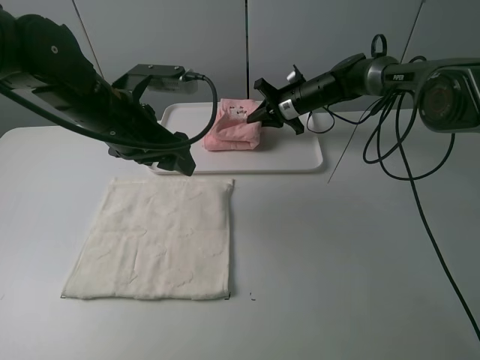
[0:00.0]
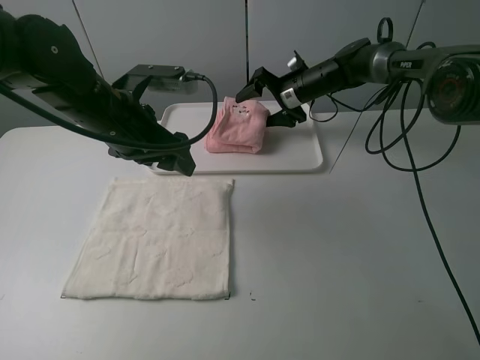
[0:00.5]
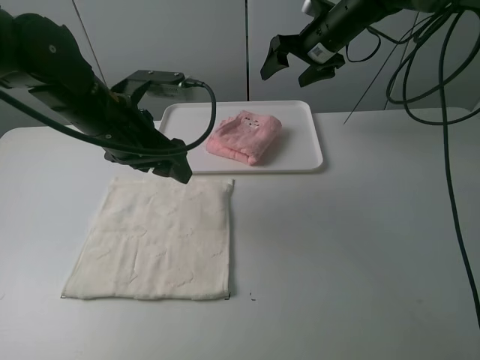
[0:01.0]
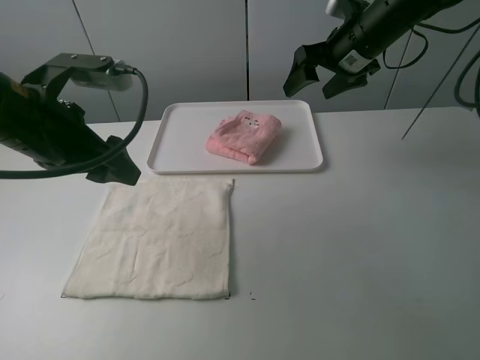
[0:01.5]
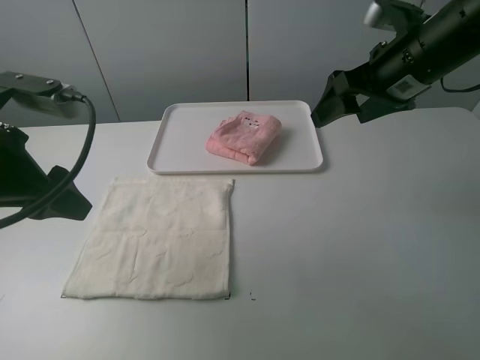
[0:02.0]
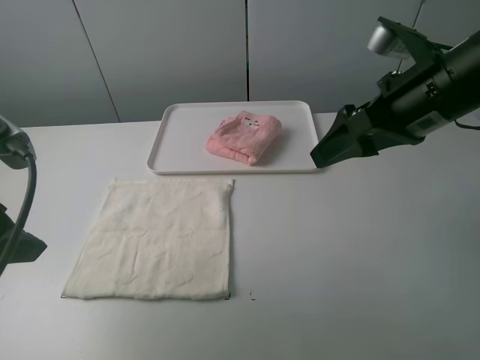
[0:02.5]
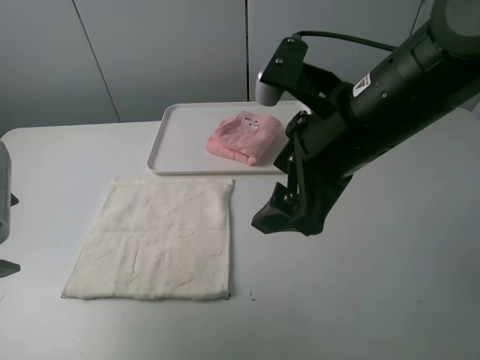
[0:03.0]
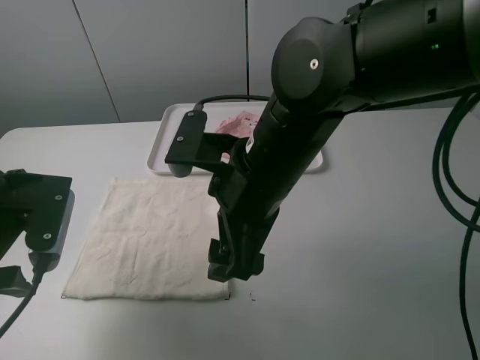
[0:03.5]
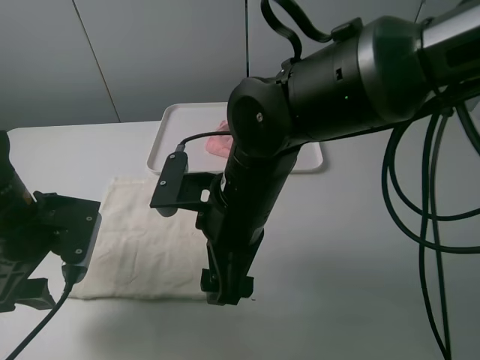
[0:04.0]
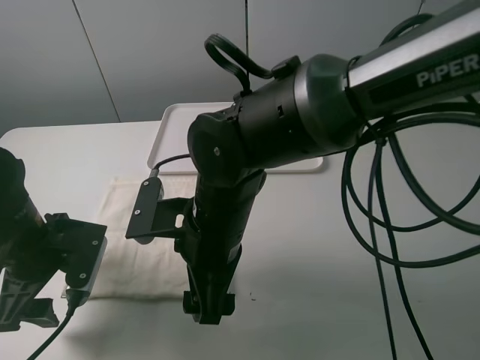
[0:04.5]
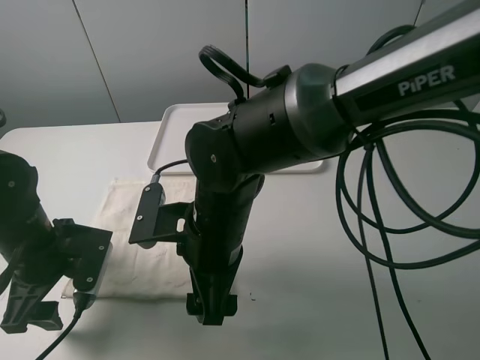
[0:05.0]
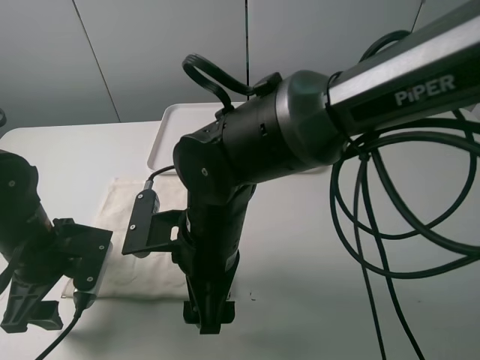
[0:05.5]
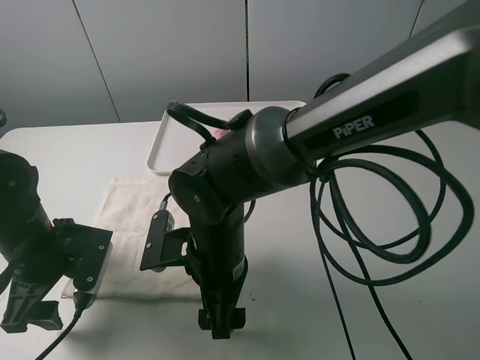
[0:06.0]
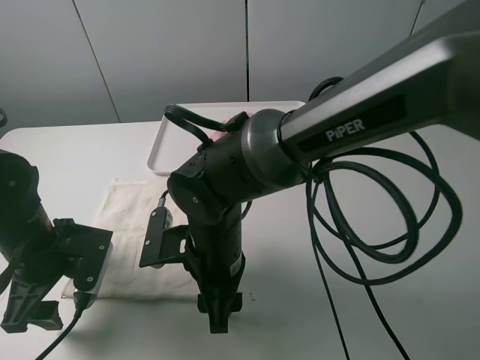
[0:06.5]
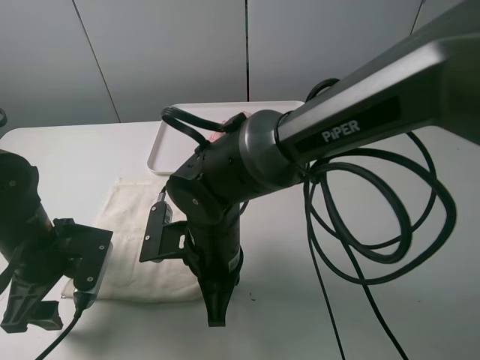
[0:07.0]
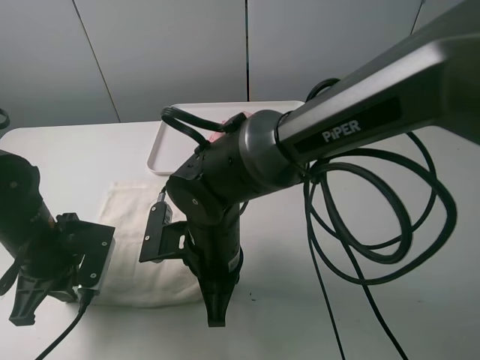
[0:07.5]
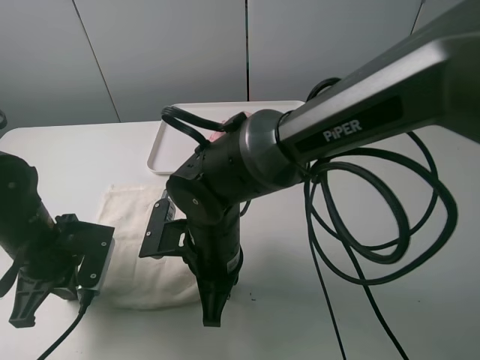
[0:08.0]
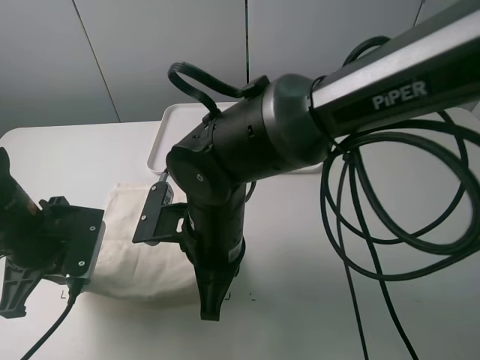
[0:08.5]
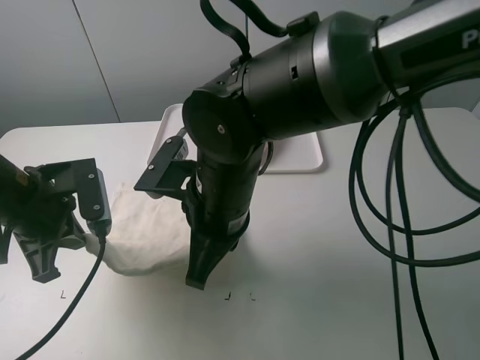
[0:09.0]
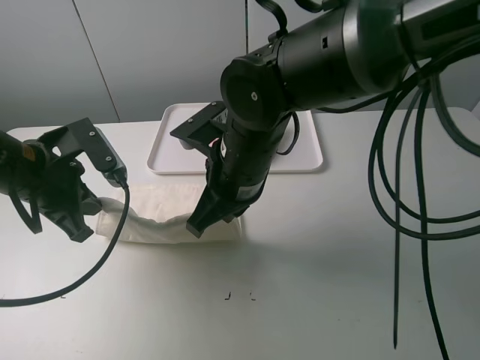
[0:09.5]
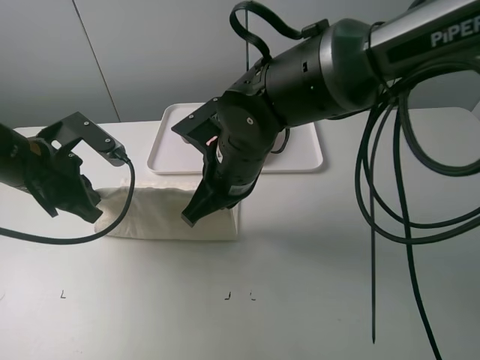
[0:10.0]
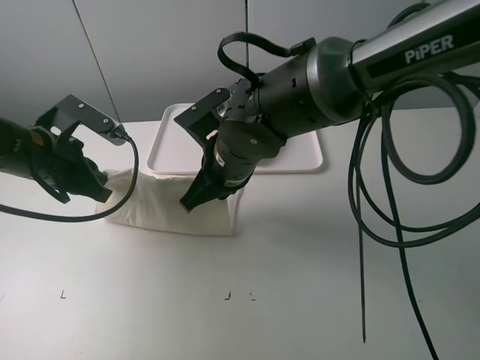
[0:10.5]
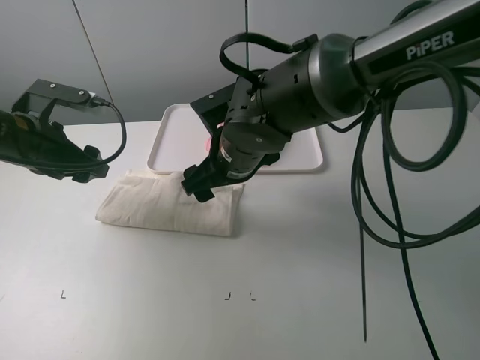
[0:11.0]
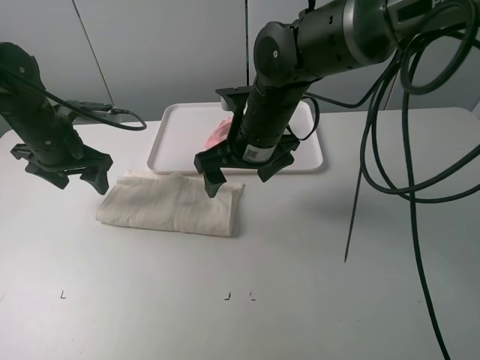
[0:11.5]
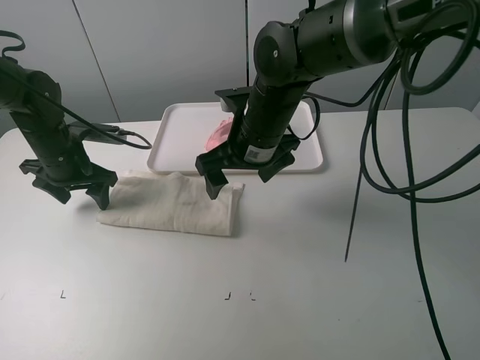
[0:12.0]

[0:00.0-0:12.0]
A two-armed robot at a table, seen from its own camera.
Task of the whole recording: fold one of the towels by two grippers and place it on the tray,then fold another towel by two grippers and place it on the folded towel.
Step, 0:01.0 to 0:07.0: Grasp the white towel with the left gripper.
Step, 0:07.5 to 0:10.5: Fold the white towel upwards with the left gripper.
0:00.0 to 0:02.0: The left gripper is displaced backward and to the left by some 15 cm, while the right gripper goes roughly 30 cm backward and upward, and opens.
0:02.0 to 0:04.0: The left gripper is displaced downward by some 10 cm. The right gripper travels to the left, backward and downward by about 25 cm.
0:04.0 to 0:06.0: The right gripper goes some 5 cm downward.
0:06.0 to 0:08.0: The left gripper closes. Meanwhile the right gripper closes its fingers.
0:08.0 to 0:10.0: The left gripper shifts some 10 cm upward and forward, while the right gripper goes roughly 10 cm forward and upward.
0:10.0 to 0:12.0: The right gripper shifts roughly 5 cm forward, and opens its fingers. The left gripper moves forward, about 10 cm, and opens up.

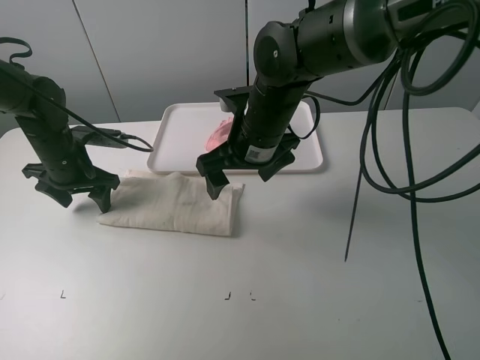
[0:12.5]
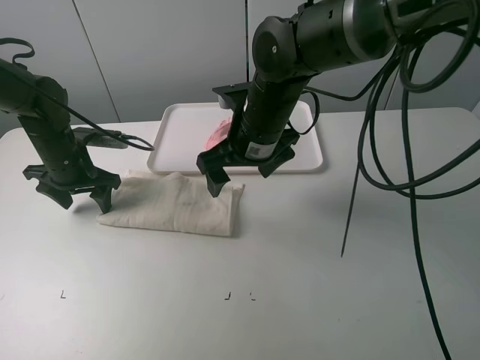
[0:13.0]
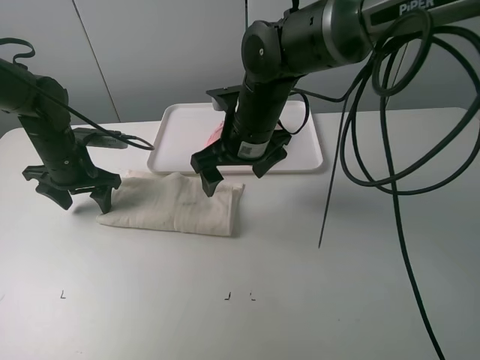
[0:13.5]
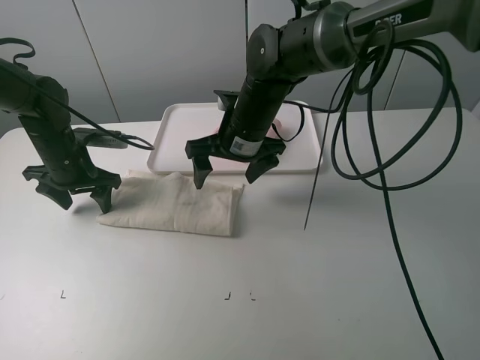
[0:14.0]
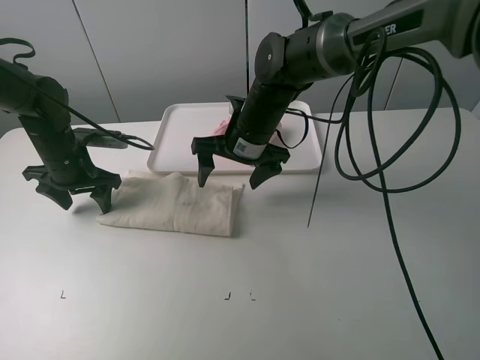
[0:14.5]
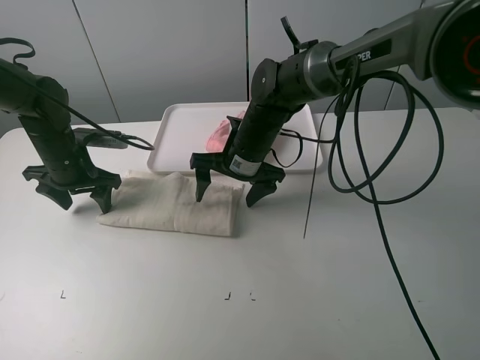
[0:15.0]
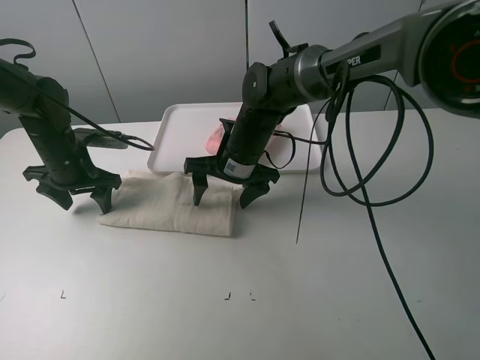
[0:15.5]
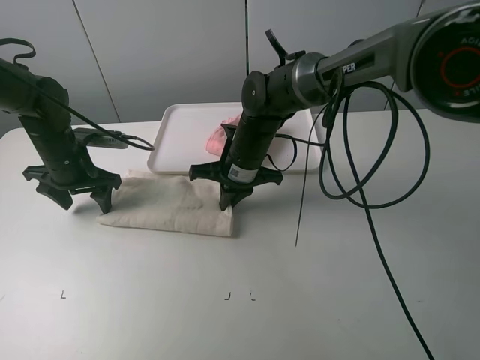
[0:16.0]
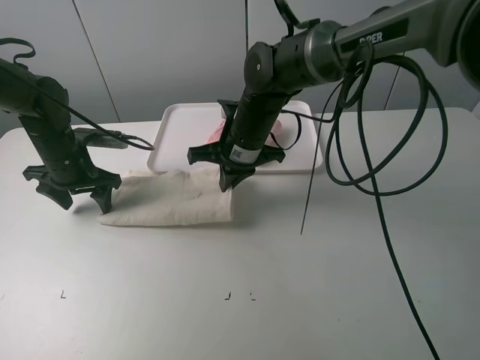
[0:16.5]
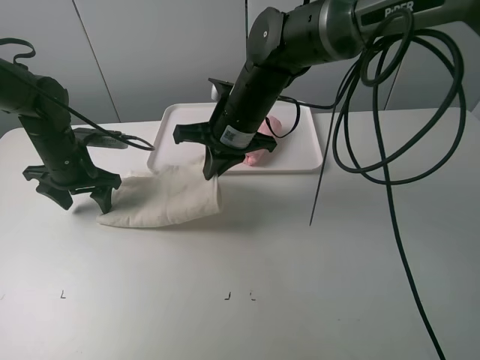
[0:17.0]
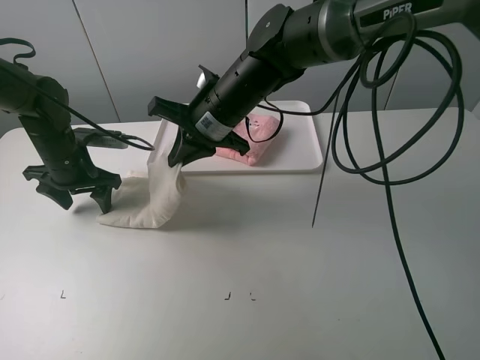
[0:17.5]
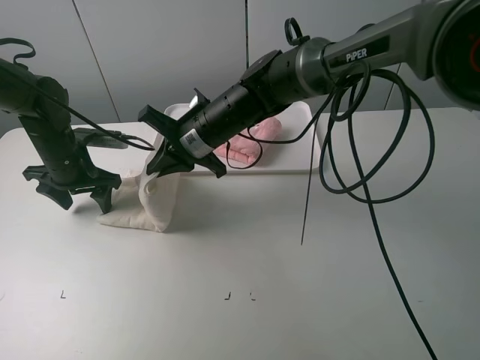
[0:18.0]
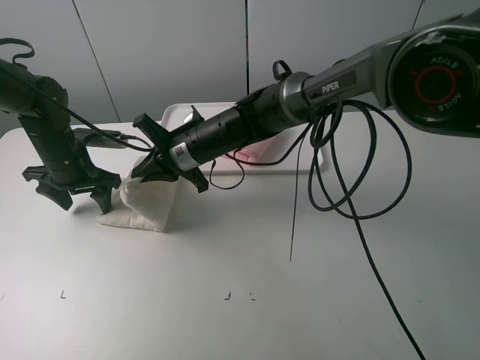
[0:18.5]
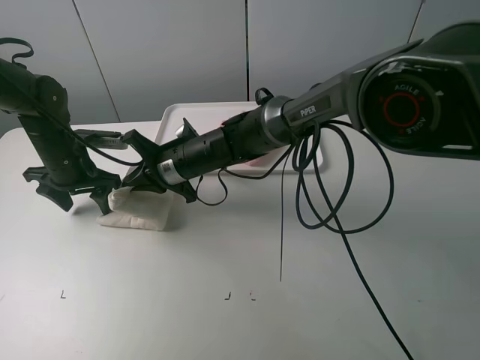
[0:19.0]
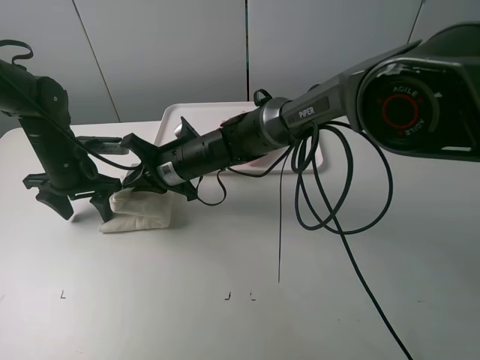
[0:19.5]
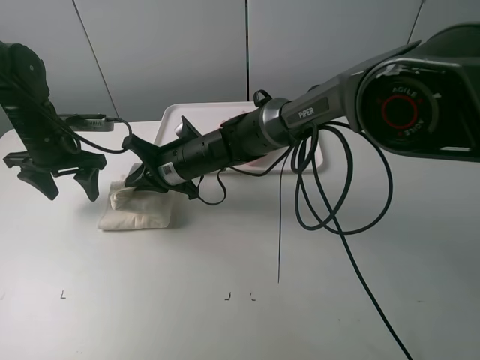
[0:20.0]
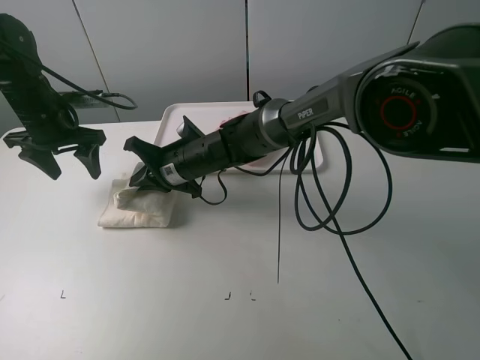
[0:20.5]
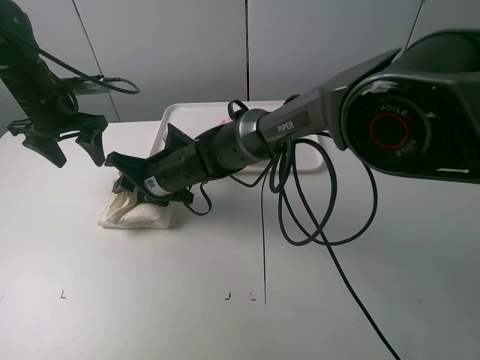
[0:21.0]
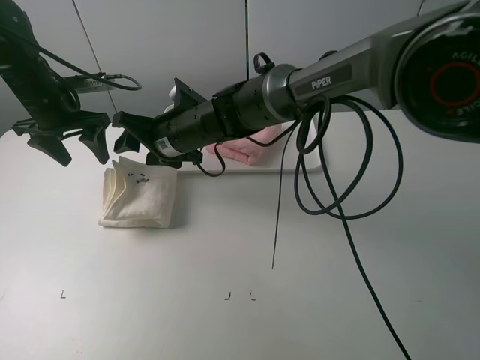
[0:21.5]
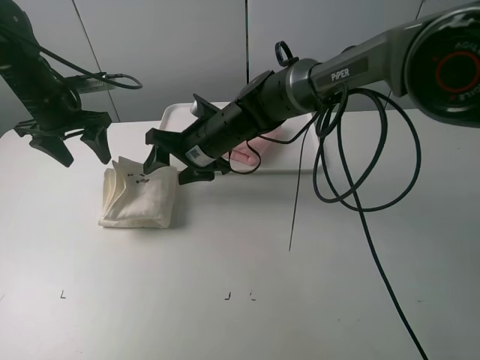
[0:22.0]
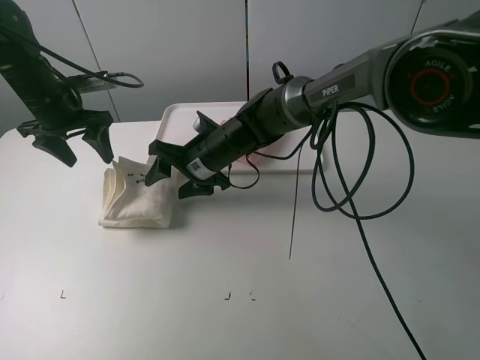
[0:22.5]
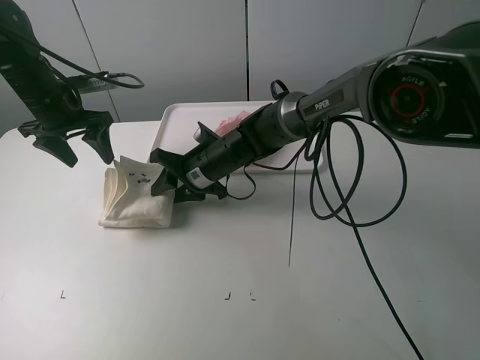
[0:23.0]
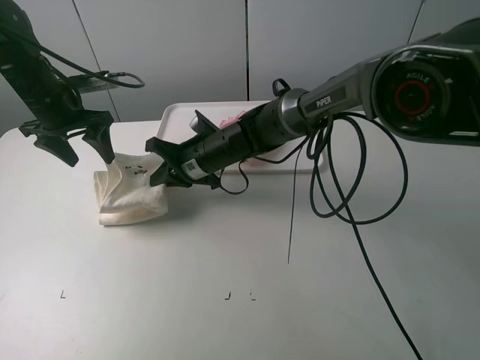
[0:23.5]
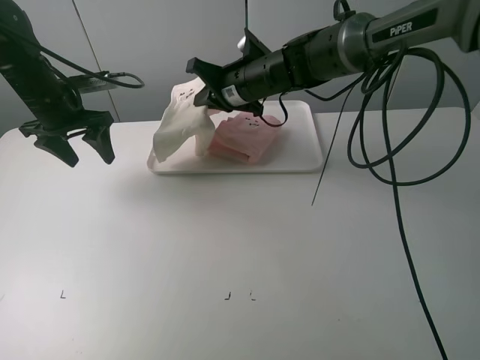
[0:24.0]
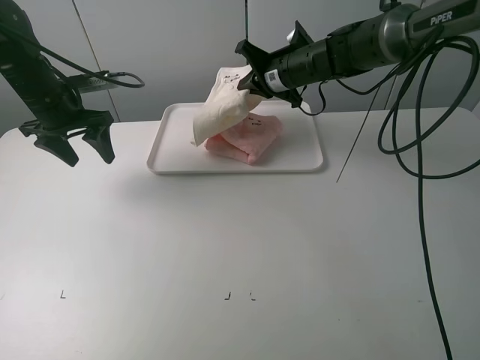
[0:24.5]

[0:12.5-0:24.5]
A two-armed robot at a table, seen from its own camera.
Task of the whole recording: fold one of the towels by two grippers and place it on the tray,then fold another towel by two grippers and place it on the folded towel.
Step, 0:13.0 to 0:16.0: Grasp the white towel with the right gripper.
Step, 0:16.5 to 0:21.5: Fold the white towel from right to left with right gripper.
Step, 0:22.0 to 0:23.0: Grasp the white towel with the right gripper.
0:12.5 to 0:14.5: The right gripper changes place by approximately 5 cm.
0:14.5 to 0:16.5: The right gripper closes.
0:16.5 to 0:18.5: The right gripper moves to the left, about 5 cm.
0:18.5 to 0:20.5: The left gripper goes roughly 5 cm upward.
0:20.5 to 0:22.5: The right gripper opens its fingers.
0:22.5 to 0:24.5: The right gripper heads to the right, forward and upward, covering some 20 cm, and closes.

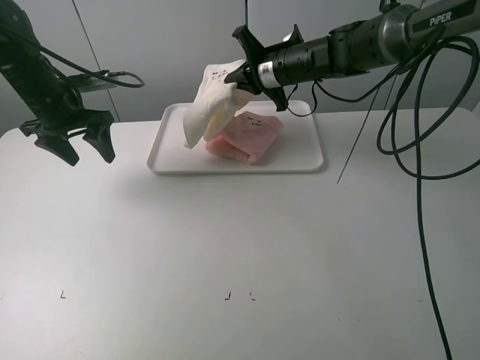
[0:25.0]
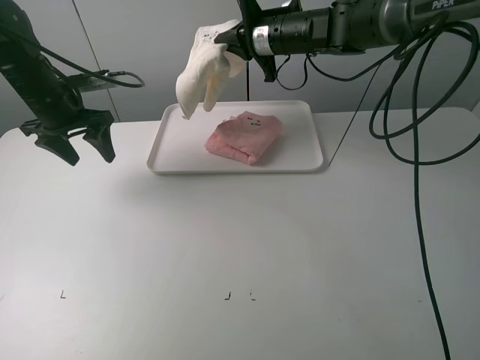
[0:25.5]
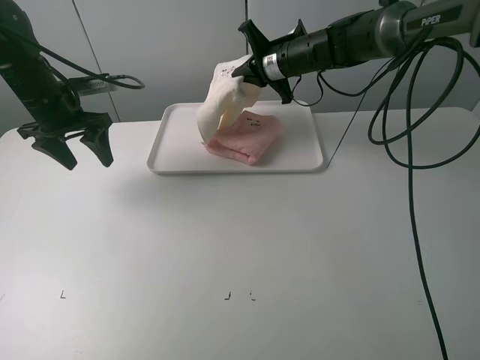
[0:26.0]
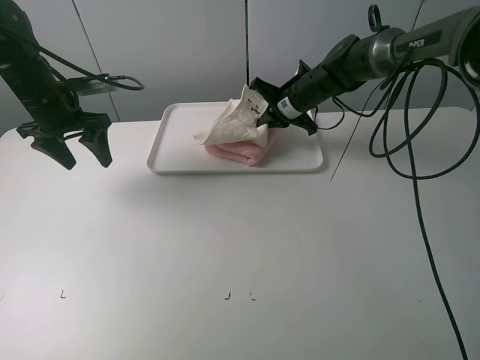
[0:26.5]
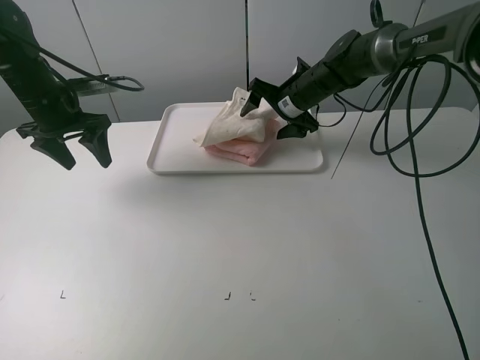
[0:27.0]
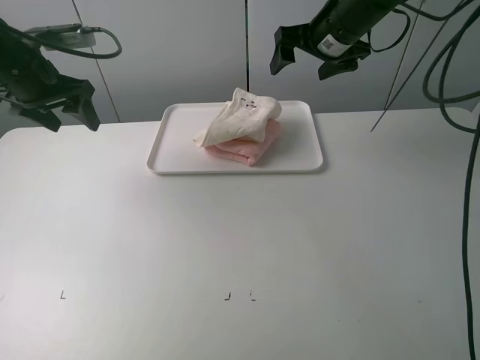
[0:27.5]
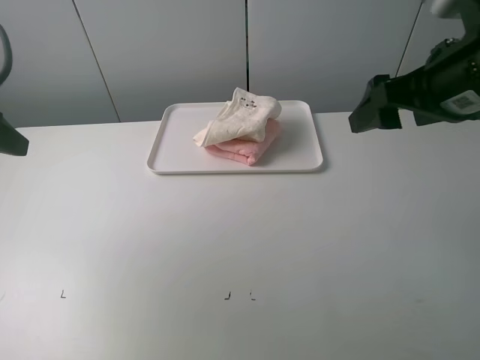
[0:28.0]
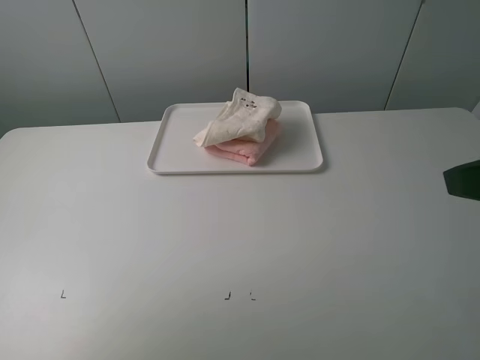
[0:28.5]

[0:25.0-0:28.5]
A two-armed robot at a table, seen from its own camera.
Task of the whole recording: fold one of the towels by two grippers and place it on the tray,then fold another towel by two grippers and place it on the folded towel.
Step, 0:25.0 to 0:27.0: Place the white towel on the pink towel with the right gripper.
0:25.0 to 0:27.0: The right gripper ends up some 5 cm from where it was, and opens up.
0:27.0 to 0:28.5: The right gripper moves backward and upward, roughly 40 cm; the left gripper moves backward, some 30 cm.
